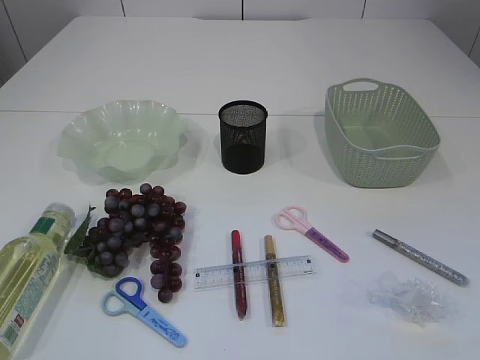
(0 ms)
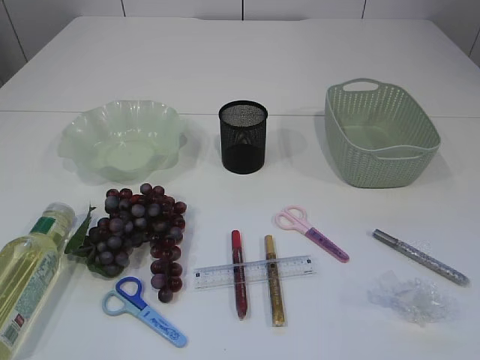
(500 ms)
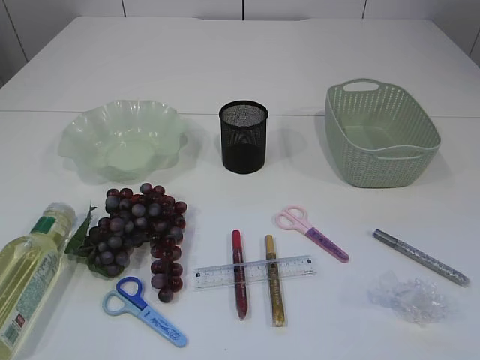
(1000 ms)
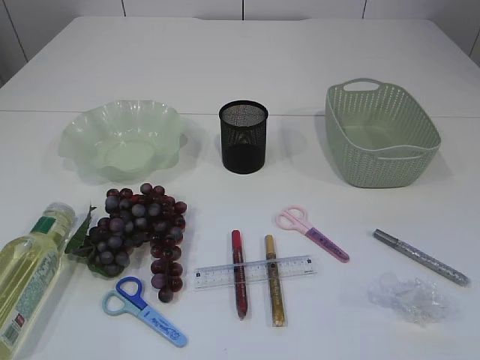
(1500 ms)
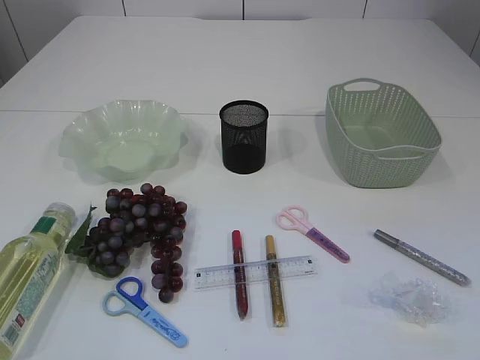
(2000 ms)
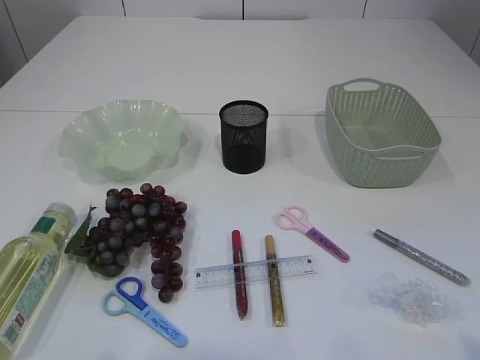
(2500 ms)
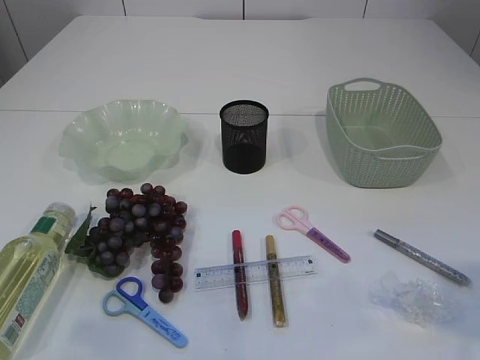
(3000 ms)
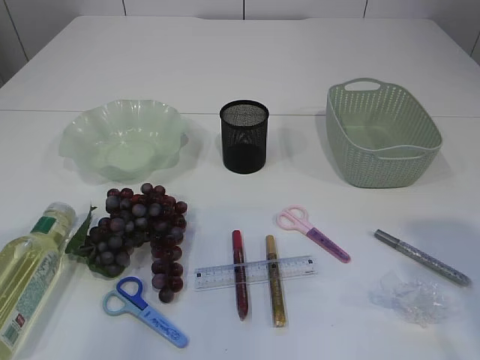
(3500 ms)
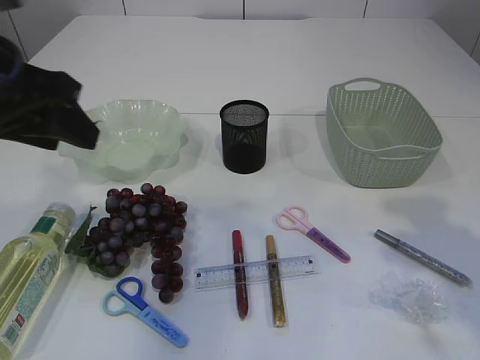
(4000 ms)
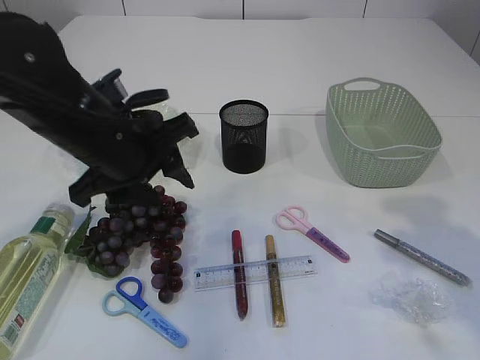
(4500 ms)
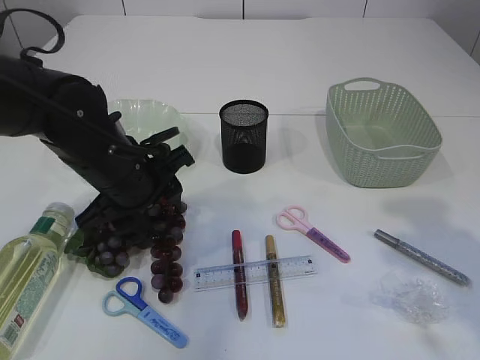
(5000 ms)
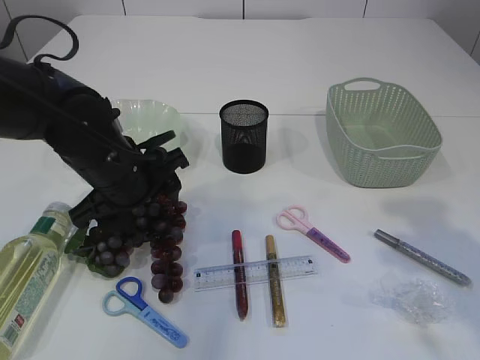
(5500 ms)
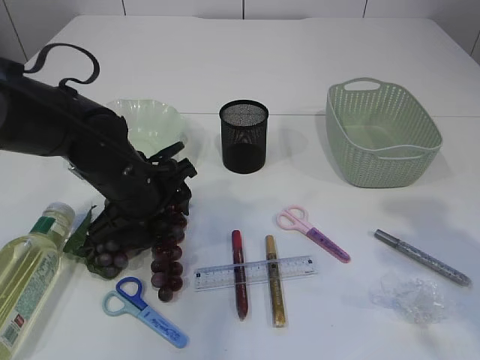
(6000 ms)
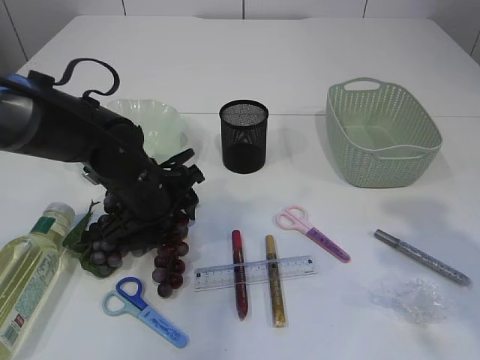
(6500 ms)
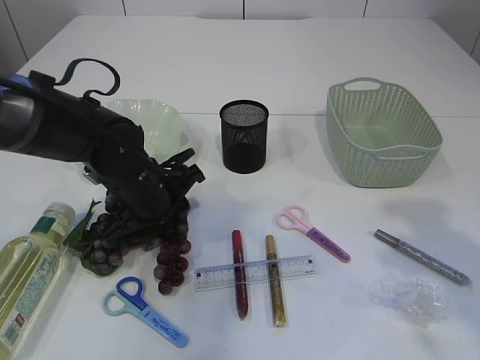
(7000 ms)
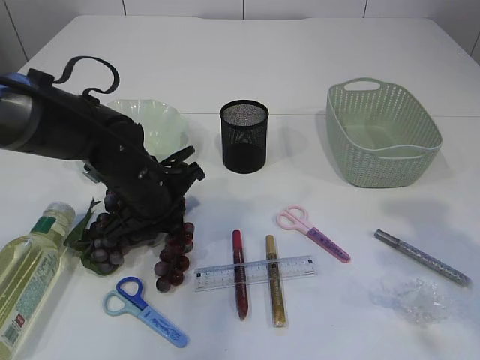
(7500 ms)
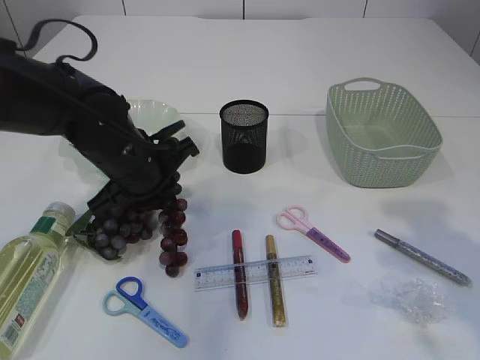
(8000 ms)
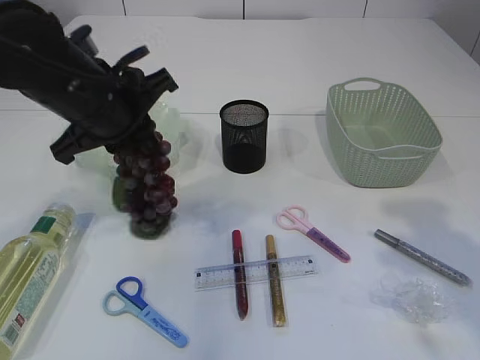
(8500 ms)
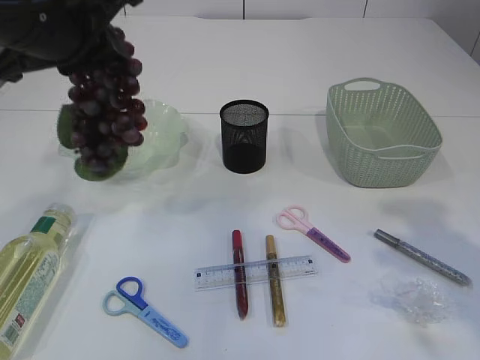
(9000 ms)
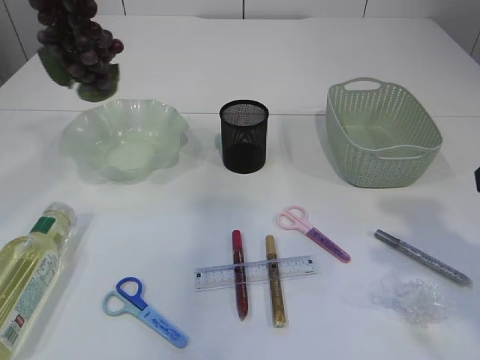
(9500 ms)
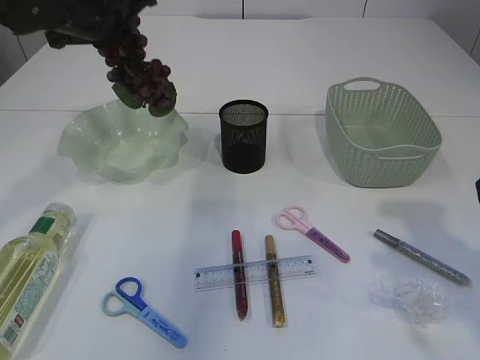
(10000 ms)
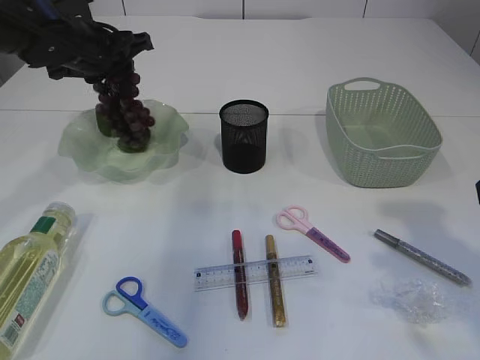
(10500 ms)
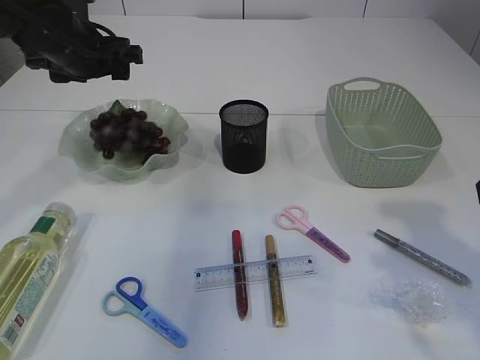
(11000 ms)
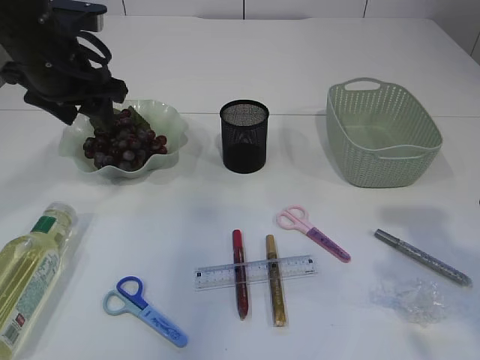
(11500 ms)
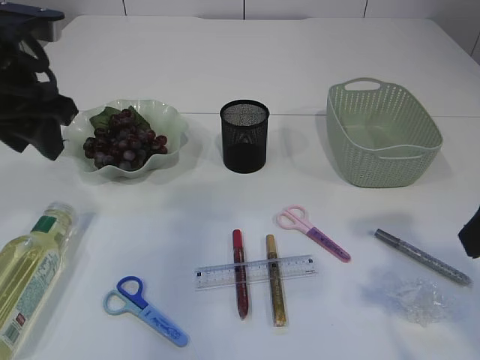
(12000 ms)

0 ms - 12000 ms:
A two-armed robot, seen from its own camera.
Step, 0 ms - 9000 ms: Pick up the grapes.
Step, 9500 ms - 11000 ms: Place the grapes in the plate.
2000 ms - 4000 ms: The right gripper travels forward by approximately 20 cm. Meanwhile the left gripper is displaced forward and to the right by about 30 cm.
4000 ms - 6000 ms: The left gripper is displaced downward, forward and to the right by roughly 20 cm.
6000 ms - 8000 ms: The left gripper closes up.
8000 ms - 10000 ms: The left gripper travels upward, forward and to the left by about 20 cm.
10000 ms - 12000 ms: The left gripper is displaced backward by some 10 cm, and opens up.

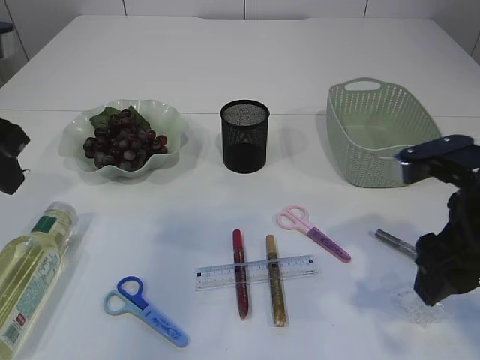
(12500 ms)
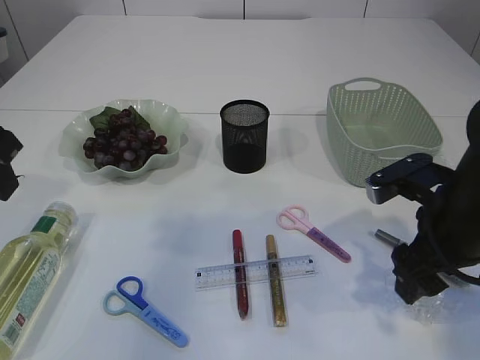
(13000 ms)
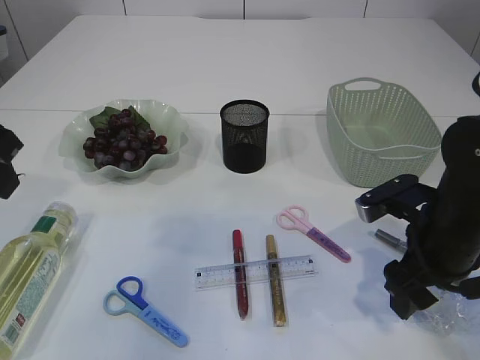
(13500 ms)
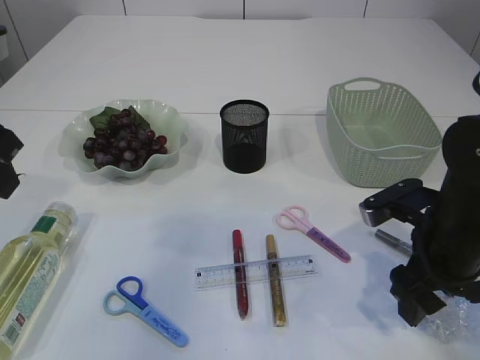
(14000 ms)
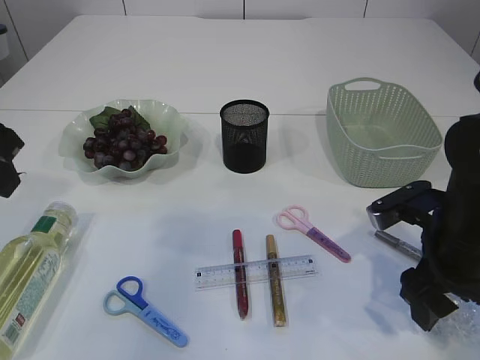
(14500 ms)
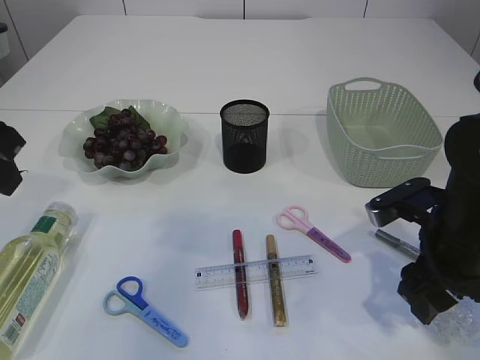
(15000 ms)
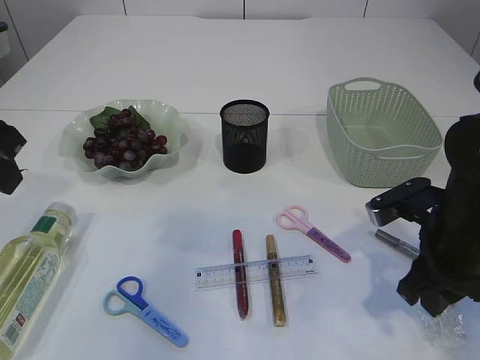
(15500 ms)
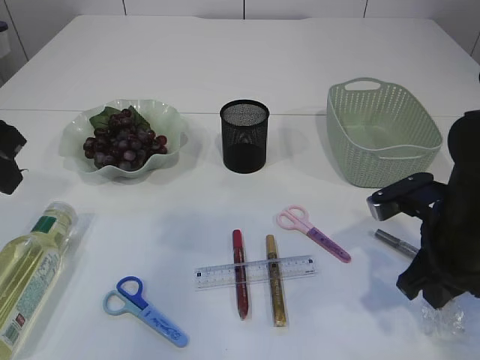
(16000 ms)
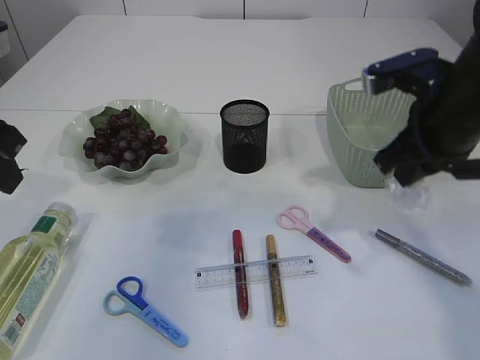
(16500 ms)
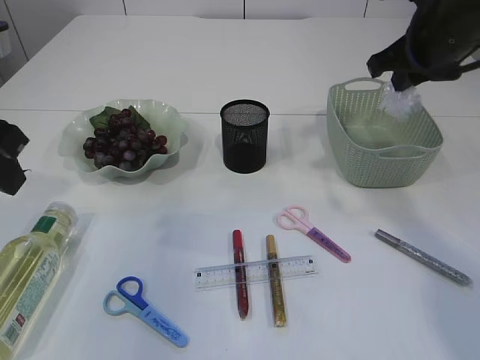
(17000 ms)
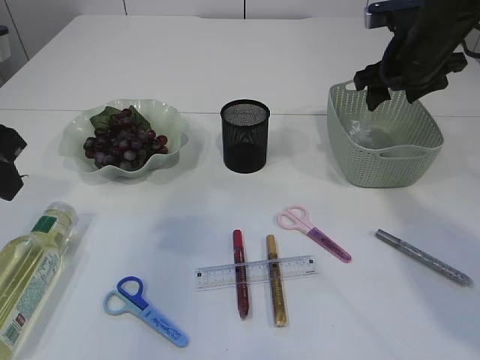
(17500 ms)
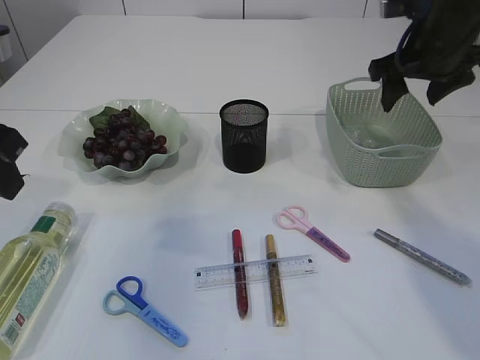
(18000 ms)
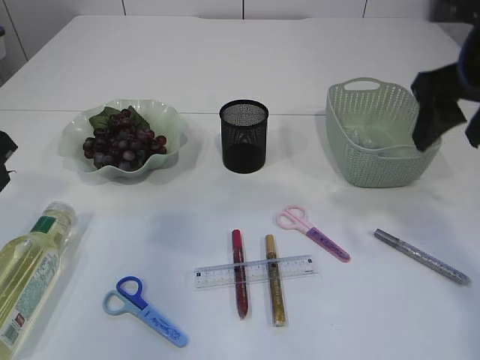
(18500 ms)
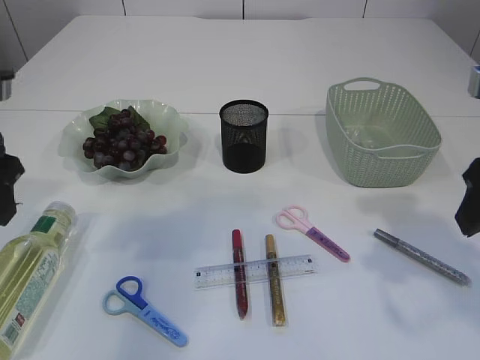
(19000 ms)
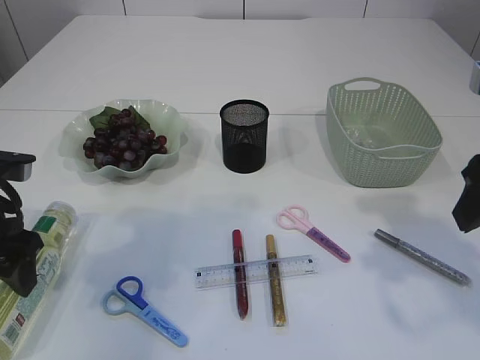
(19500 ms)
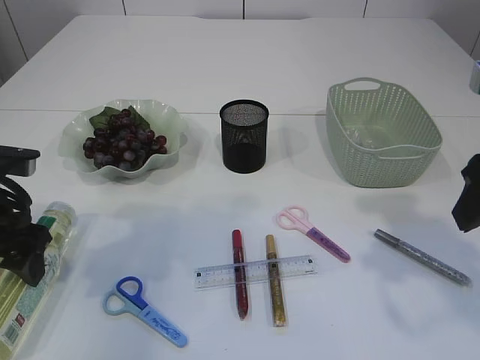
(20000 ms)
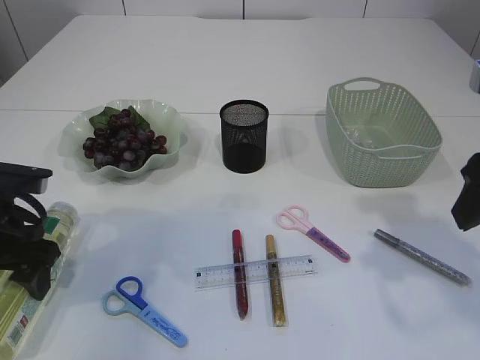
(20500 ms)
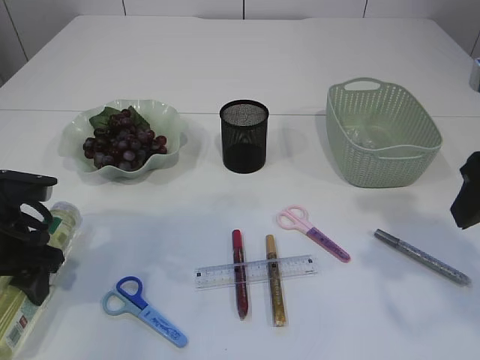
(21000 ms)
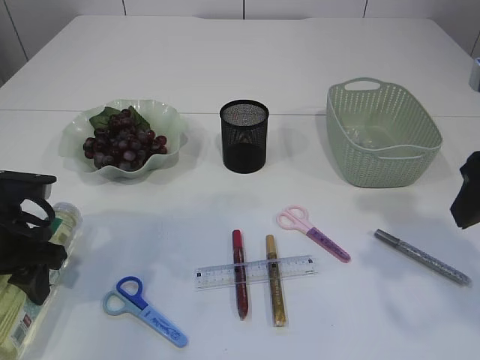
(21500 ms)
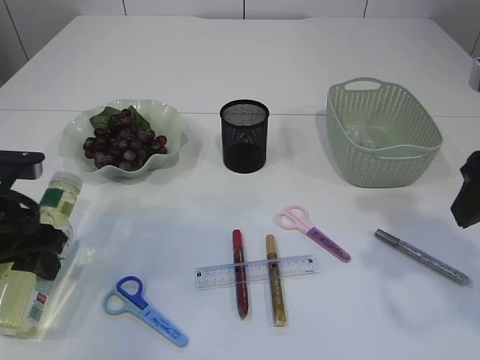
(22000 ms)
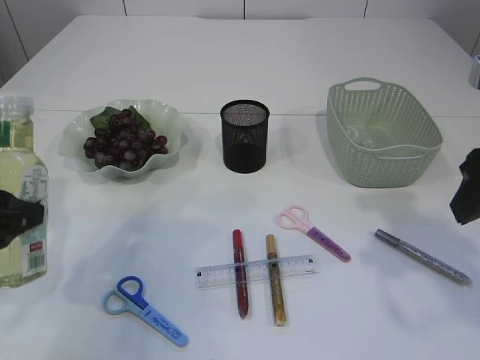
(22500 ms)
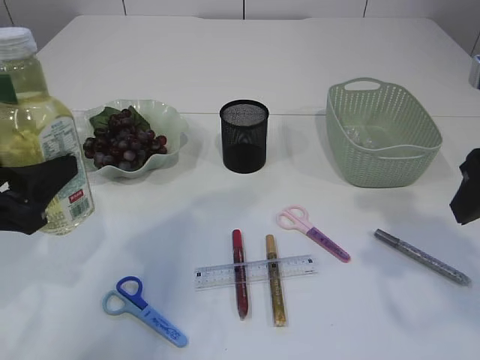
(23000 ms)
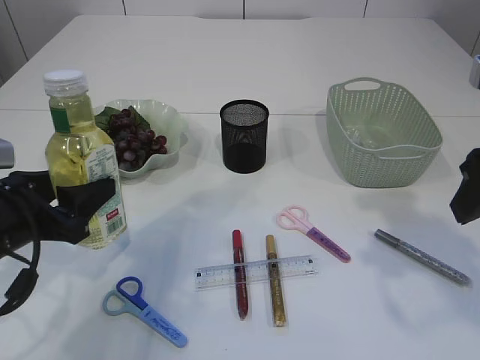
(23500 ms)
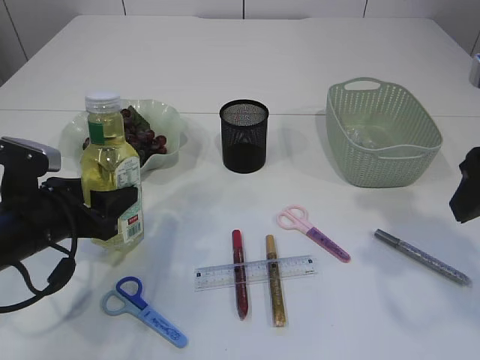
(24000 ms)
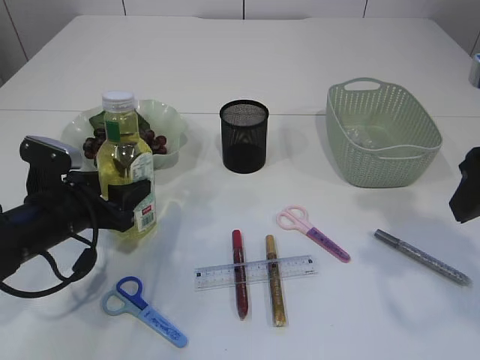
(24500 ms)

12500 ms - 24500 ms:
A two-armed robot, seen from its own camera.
Step, 12500 ms - 16000 ms: Pick up the plastic.
Step, 16500 ms - 18000 ms: Place the plastic in the basket.
Step, 18500 ms - 22000 ms: Pick up the bottle with the left arm.
12500 ms - 14500 ms: The right gripper moves downward, roughly 10 cm.
14500 ms - 16500 ms: The right gripper travels upward by roughly 10 cm, and closes its fingers.
16500 ms - 18500 ms: The right gripper moves upward, some 5 cm, goes forward and returns, some 15 cm each way, and opens up.
18500 ms - 20500 ms: The right gripper travels backward by about 10 cm. The left gripper heads downward, covering about 15 cm, and opens its fingers.
20500 ms - 22500 ms: The left gripper heads backward and upward, covering about 10 cm.
22500 ms - 24500 ms: The left gripper heads downward and forward, covering some 15 cm.

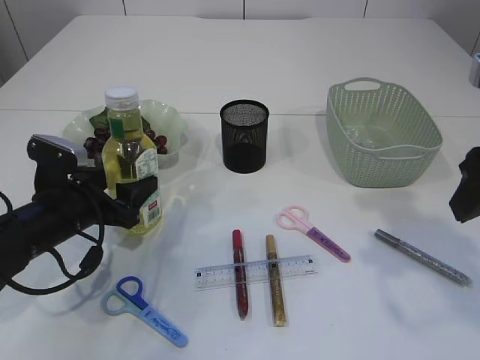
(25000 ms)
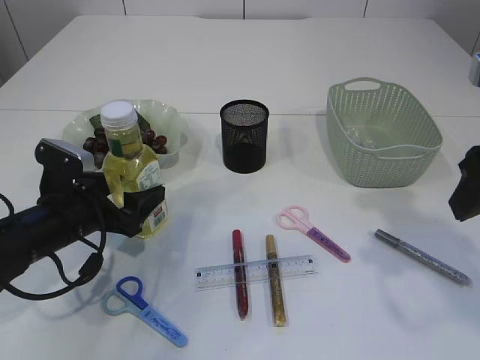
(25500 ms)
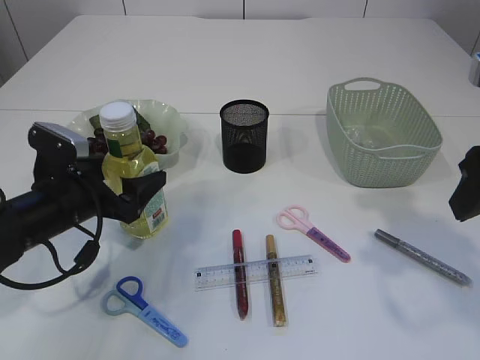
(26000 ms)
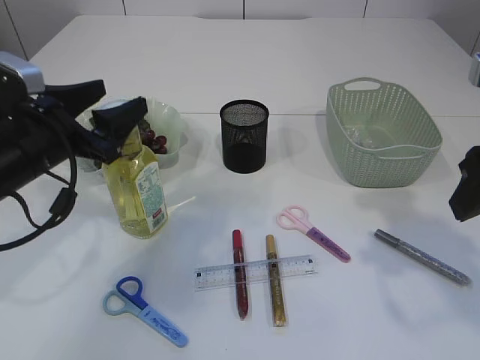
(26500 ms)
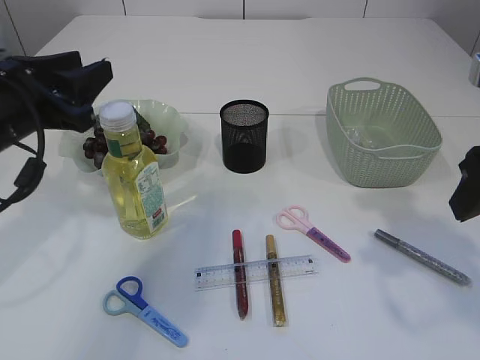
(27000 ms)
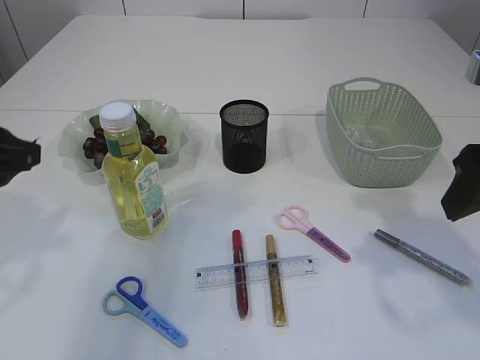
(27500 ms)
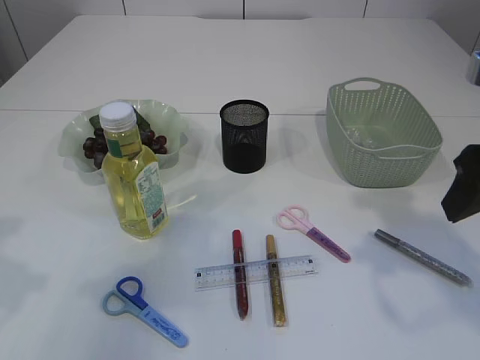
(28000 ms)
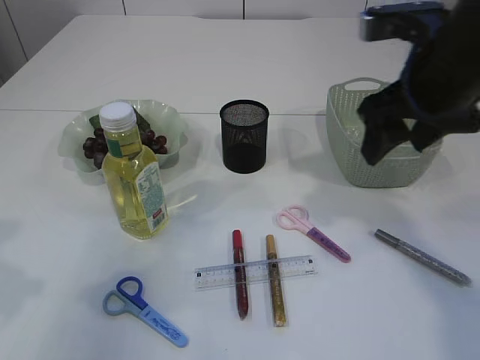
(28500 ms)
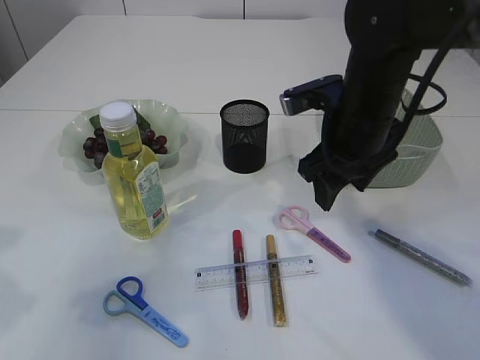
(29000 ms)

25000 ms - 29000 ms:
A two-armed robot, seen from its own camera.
25000 ms - 27000 ms: The left gripper shifts roughly 15 cm upward.
27000 ms - 29000 ms: The left gripper travels backward by approximately 10 cm. The right gripper travels forward, to the left and downward by roughly 20 cm.
